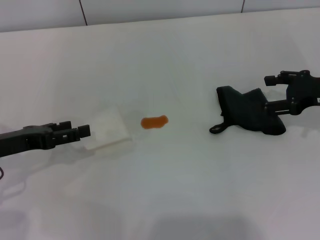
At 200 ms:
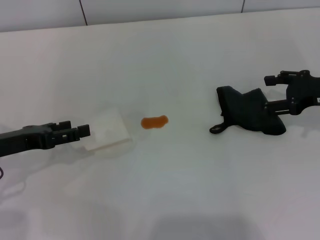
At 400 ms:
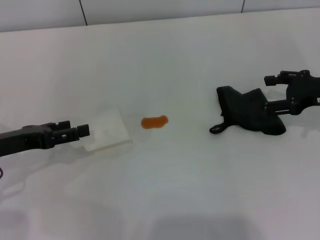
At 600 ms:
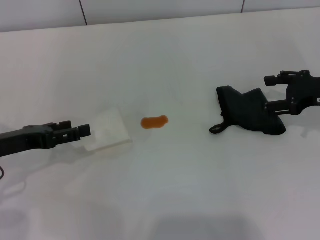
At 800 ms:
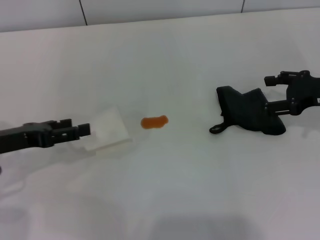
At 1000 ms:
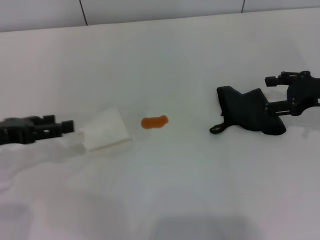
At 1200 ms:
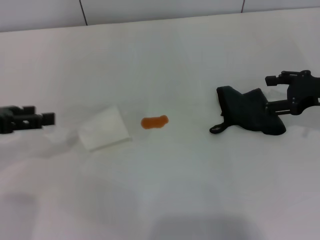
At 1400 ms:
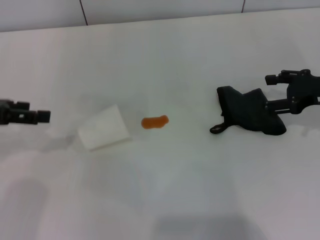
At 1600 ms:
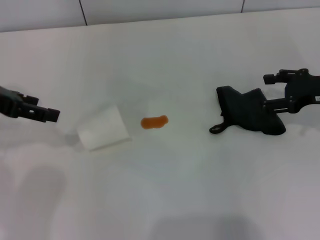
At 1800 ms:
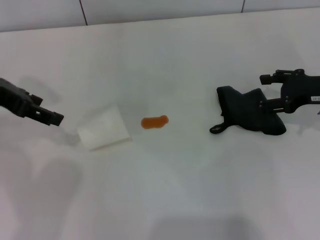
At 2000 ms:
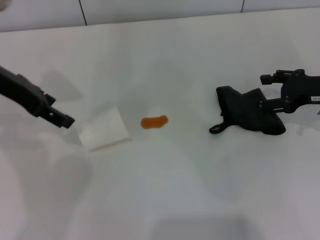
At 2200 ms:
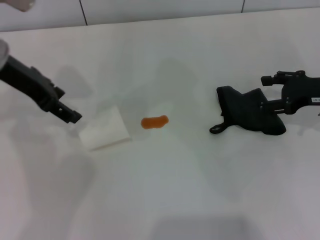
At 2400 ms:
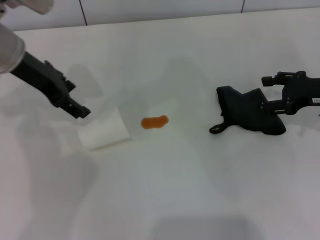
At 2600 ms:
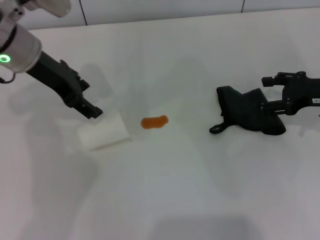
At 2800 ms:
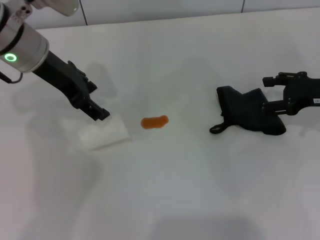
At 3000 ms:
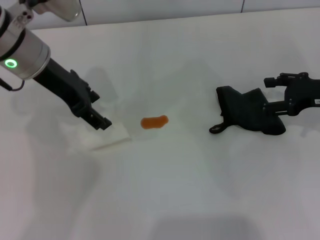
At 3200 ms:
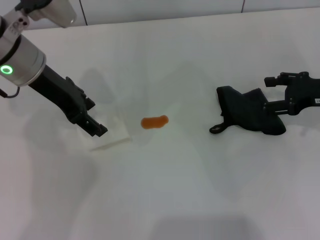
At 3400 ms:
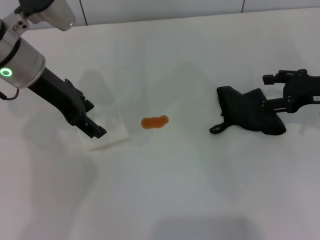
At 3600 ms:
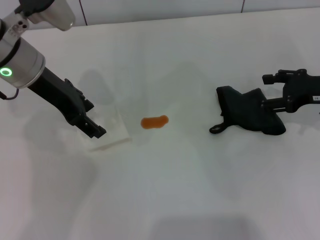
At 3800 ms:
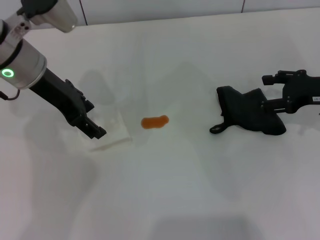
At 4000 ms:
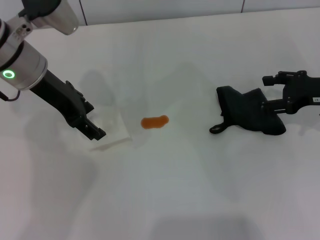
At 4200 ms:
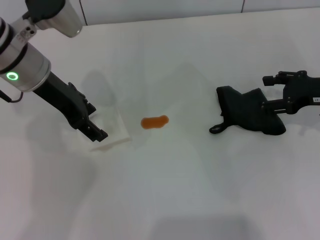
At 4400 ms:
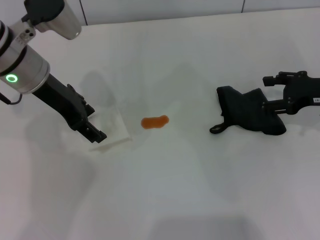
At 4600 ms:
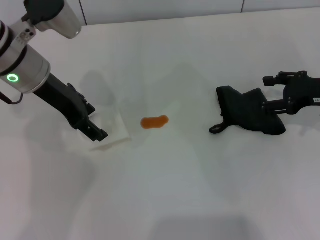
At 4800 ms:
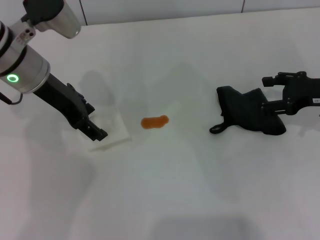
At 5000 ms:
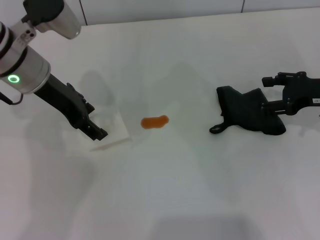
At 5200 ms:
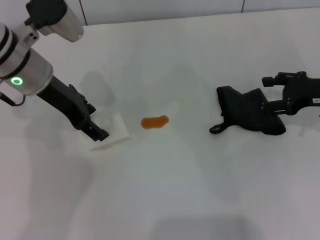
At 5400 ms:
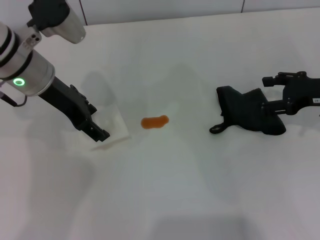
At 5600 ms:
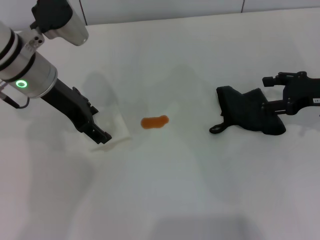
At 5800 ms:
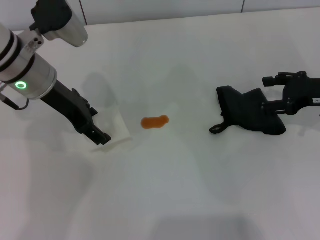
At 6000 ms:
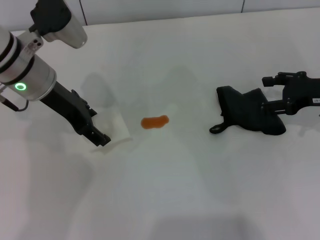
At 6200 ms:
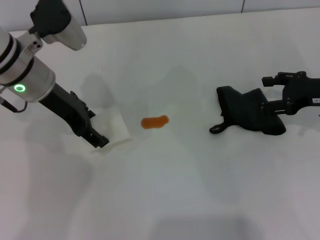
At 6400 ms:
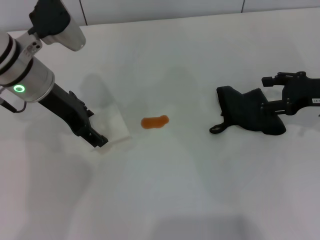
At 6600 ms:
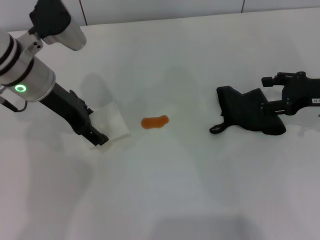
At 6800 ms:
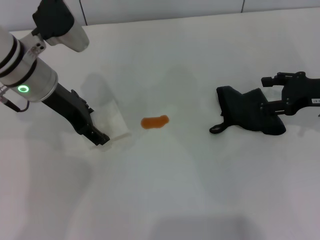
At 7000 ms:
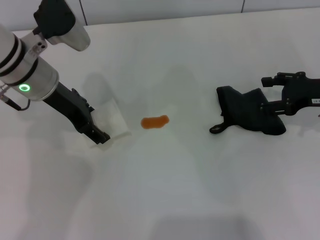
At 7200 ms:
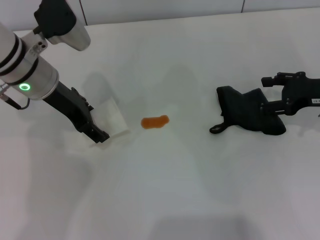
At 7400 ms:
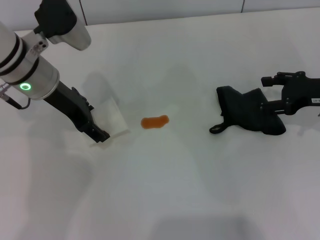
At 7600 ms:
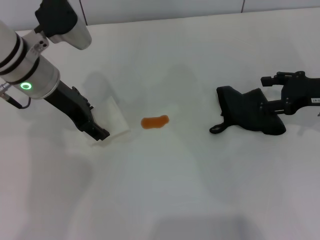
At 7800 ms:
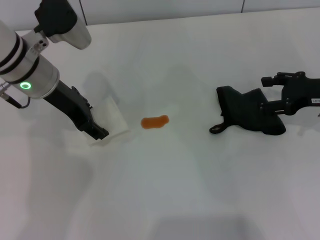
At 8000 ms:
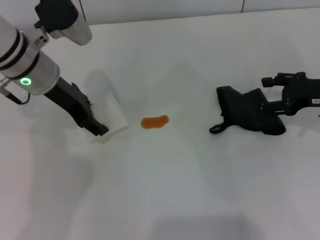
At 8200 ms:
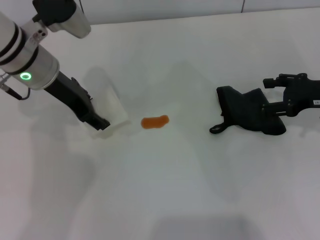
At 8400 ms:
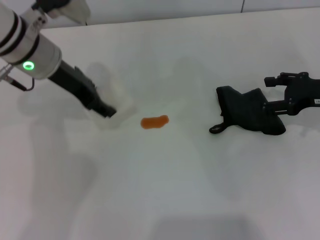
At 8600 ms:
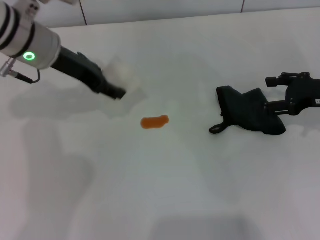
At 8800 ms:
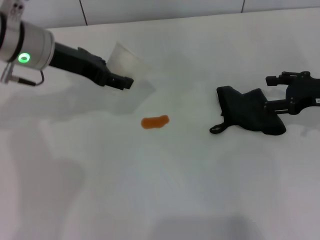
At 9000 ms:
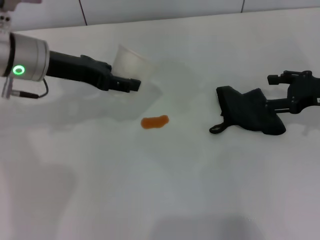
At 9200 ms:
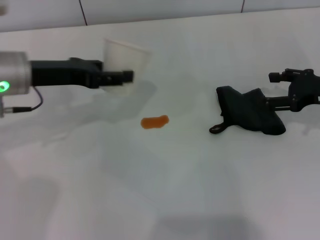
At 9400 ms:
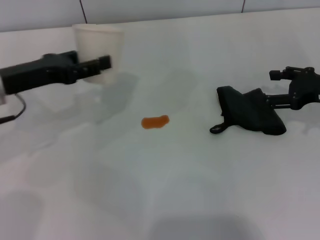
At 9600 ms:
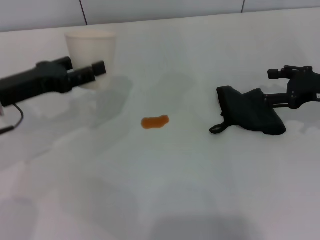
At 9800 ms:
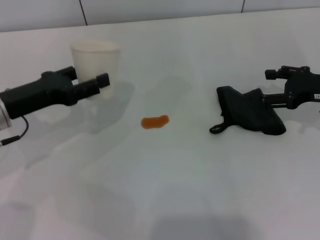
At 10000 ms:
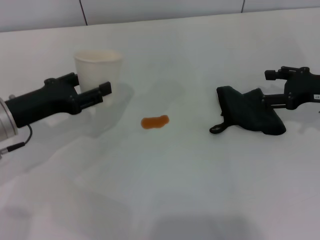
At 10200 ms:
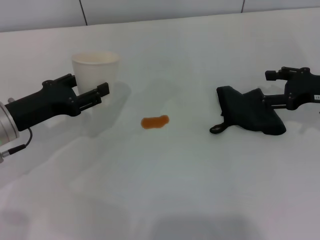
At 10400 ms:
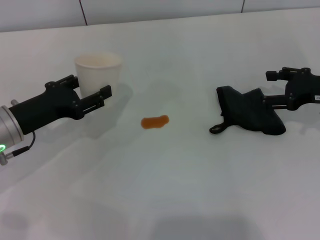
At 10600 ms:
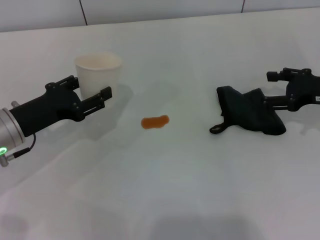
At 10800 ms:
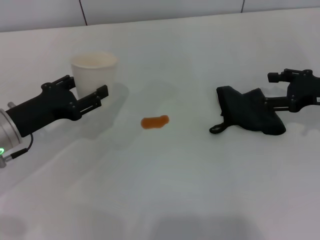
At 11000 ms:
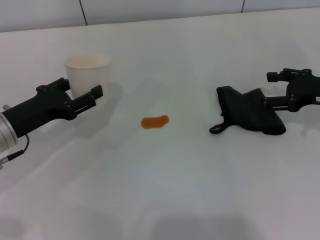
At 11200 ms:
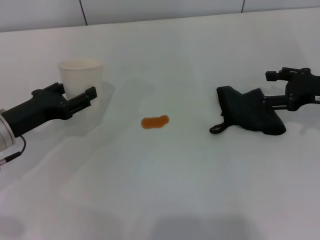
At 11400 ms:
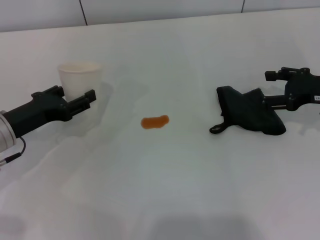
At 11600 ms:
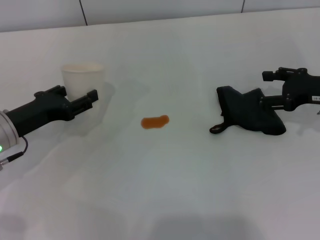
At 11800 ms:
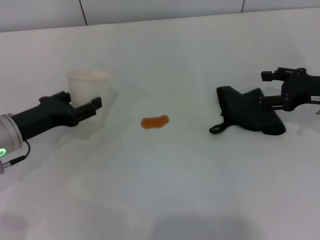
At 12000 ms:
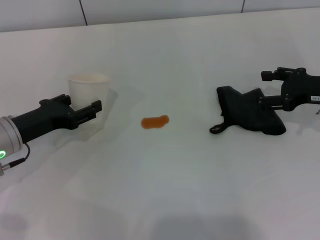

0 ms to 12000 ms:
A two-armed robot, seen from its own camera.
Step, 0 ms to 7000 ms: Grasp the paper cup with the left gripper.
0 ms to 1600 ms: The left gripper goes approximately 15 cm upward and forward.
1600 ms to 3000 ms: The left gripper is displaced to the right by approximately 10 cm.
3000 ms to 6000 ms: The grippers stay close to where they were, moving slightly.
6000 ms to 7600 ms: Both grippers stay put.
7600 ms to 9000 ms: The left gripper closes.
9000 ms to 10400 ms: The left gripper heads downward, backward and to the left, covering some 15 cm.
10400 ms to 12000 ms: There are only small adjustments of the grippers.

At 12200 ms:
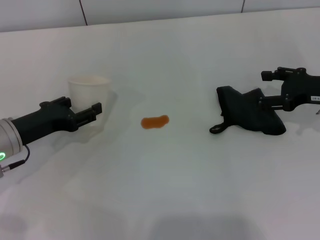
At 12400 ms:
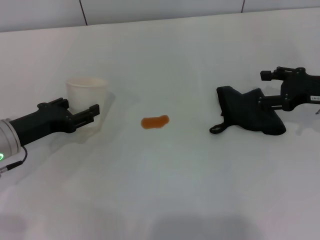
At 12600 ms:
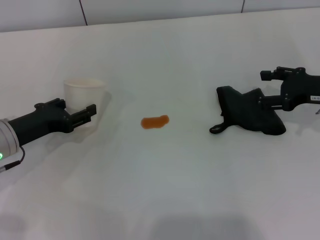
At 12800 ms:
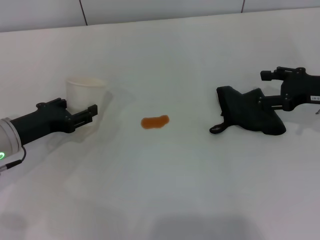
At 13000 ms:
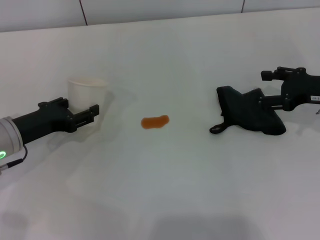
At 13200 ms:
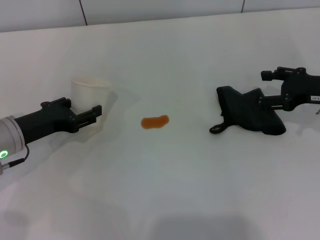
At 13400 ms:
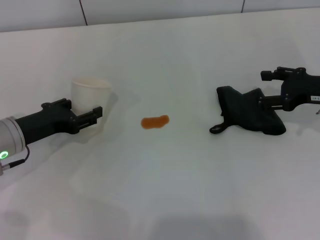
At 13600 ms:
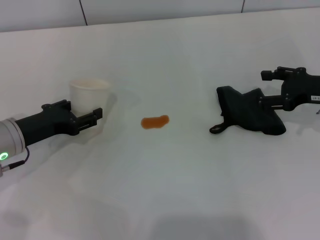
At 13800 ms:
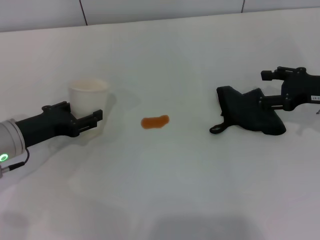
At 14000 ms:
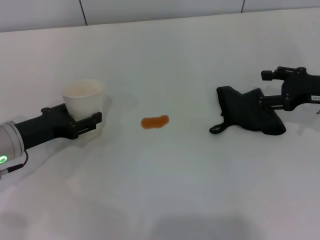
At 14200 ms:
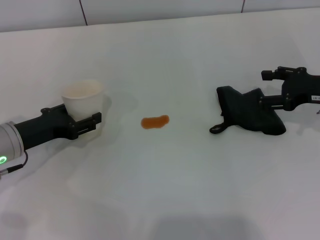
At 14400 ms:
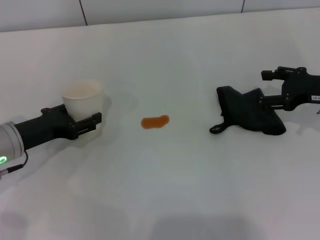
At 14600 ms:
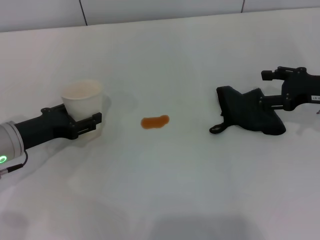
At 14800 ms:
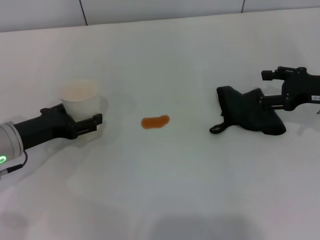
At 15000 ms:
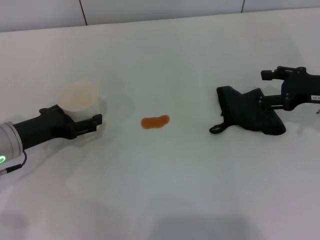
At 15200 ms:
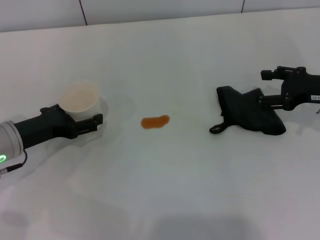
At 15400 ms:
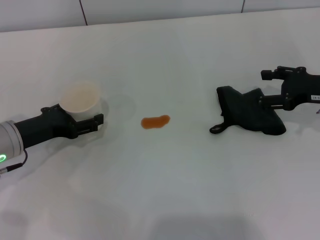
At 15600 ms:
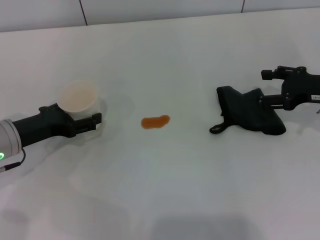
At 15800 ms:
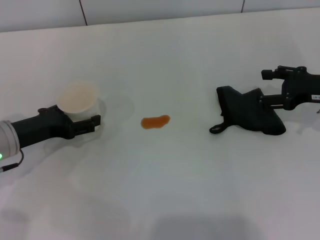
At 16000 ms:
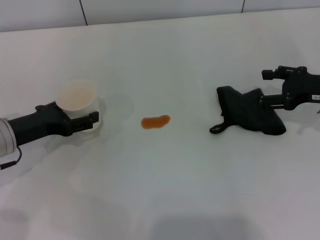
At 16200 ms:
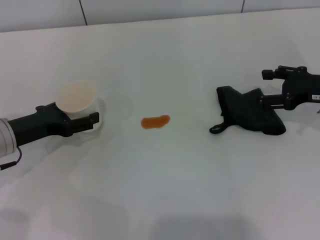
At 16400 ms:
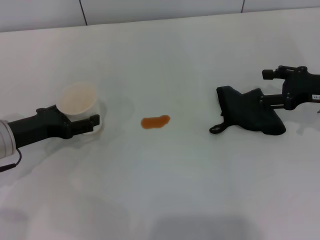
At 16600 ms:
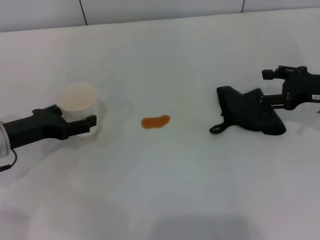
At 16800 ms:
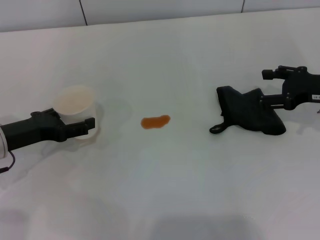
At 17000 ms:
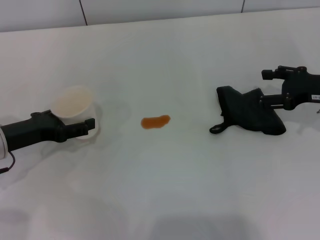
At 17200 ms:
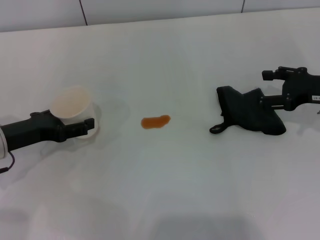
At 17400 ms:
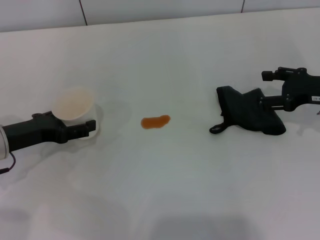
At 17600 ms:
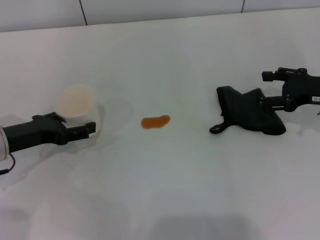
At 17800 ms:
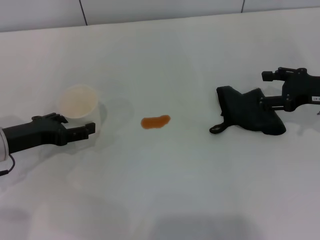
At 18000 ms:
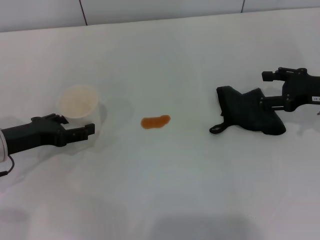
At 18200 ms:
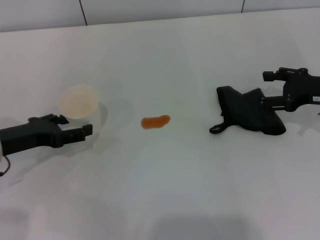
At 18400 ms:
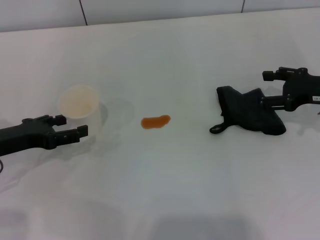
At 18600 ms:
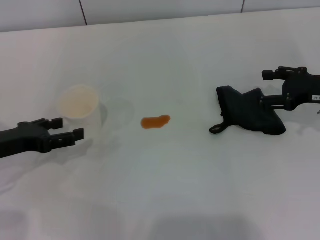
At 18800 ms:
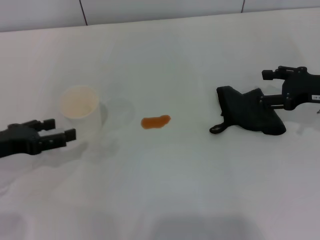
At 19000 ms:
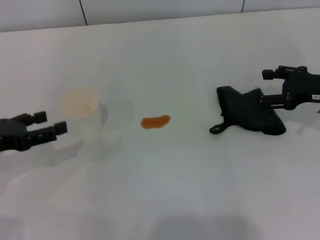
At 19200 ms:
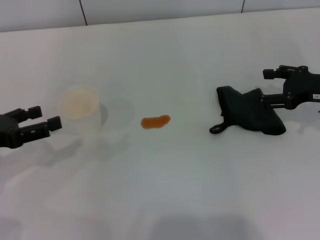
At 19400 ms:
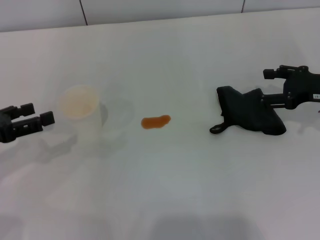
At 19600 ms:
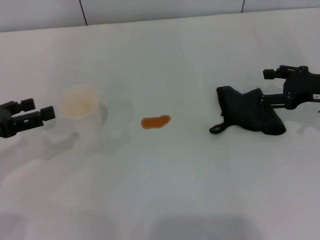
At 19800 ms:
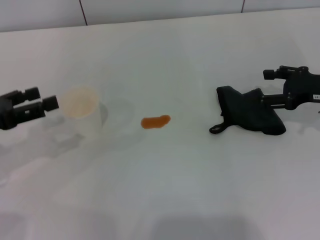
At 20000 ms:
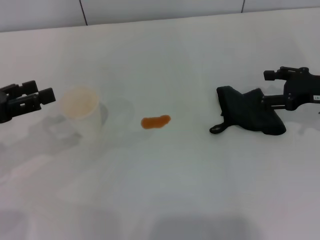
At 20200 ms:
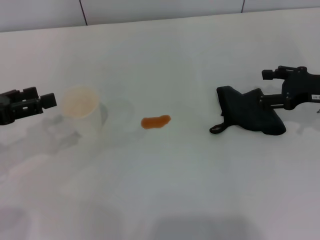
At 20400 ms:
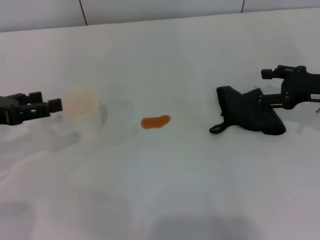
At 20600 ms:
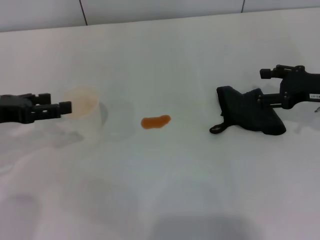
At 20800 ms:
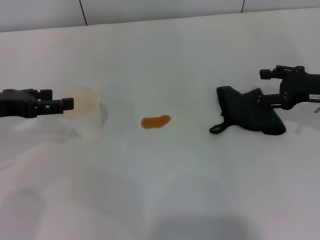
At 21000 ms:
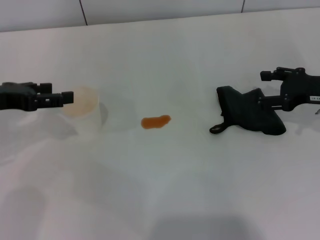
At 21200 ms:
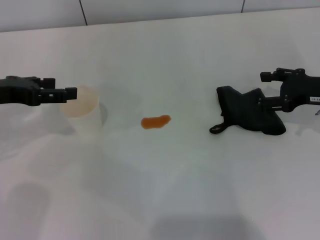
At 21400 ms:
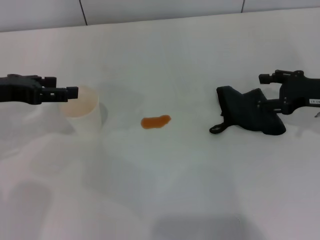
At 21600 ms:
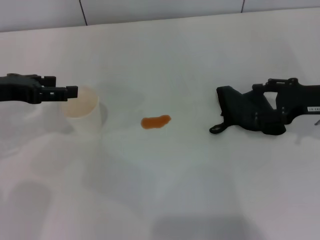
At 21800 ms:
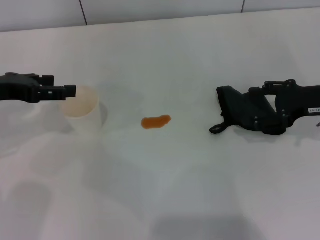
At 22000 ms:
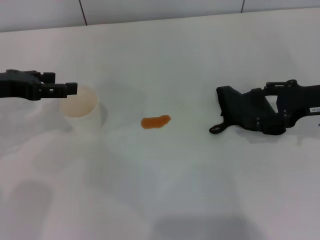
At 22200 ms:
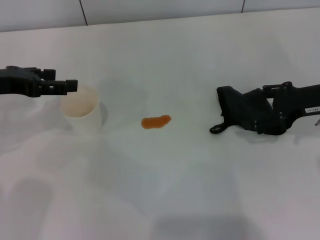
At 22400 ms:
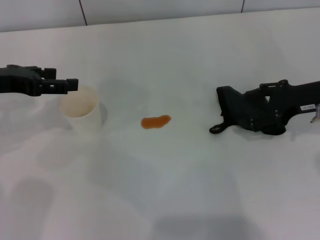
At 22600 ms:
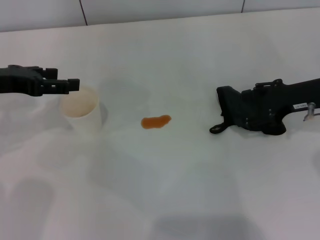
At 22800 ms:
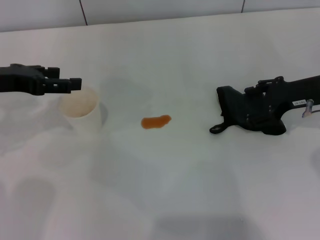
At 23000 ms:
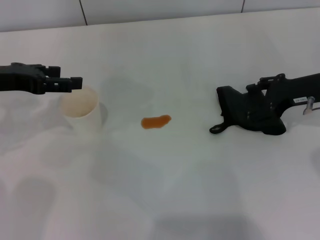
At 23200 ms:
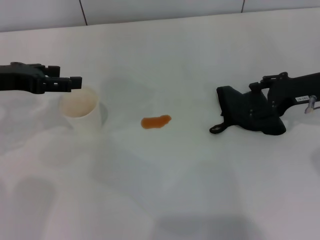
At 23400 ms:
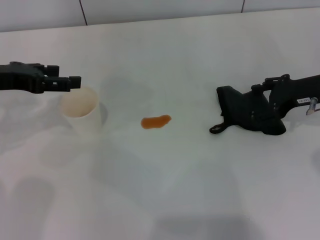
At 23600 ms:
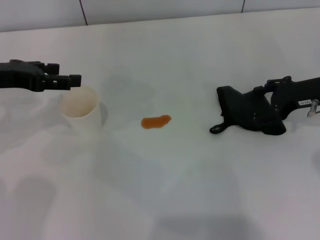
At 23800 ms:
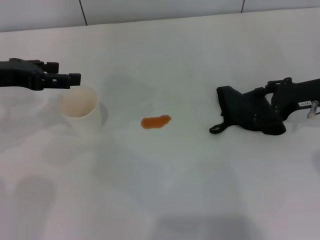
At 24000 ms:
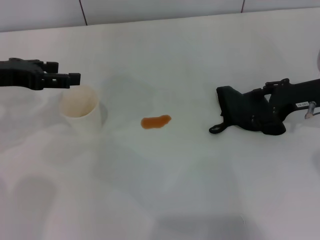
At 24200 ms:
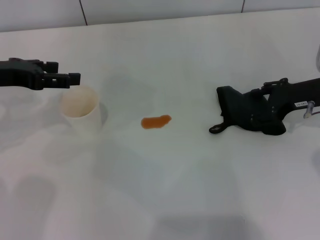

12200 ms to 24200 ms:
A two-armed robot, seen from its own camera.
Step, 12200 ms to 19600 ms: Stand the paper cup upright with the left gripper.
12200 ms to 13800 ms: The grippers move only a little.
13800 ms to 15200 ms: The left gripper opens.
15200 ms to 16600 ms: There are only small adjustments of the grippers.
16600 ms to 18200 ms: Neither gripper changes place.
18200 ms to 19800 ms: The left gripper heads upward, covering roughly 5 cm.
19800 ms to 21200 ms: The left gripper heads forward, covering some 5 cm.
21200 ms to 24200 ms: The grippers stay close to where they were, moving slightly.
